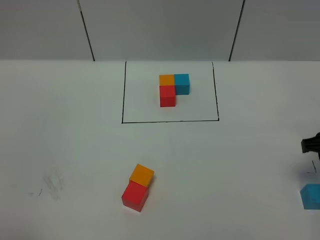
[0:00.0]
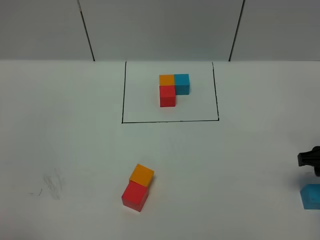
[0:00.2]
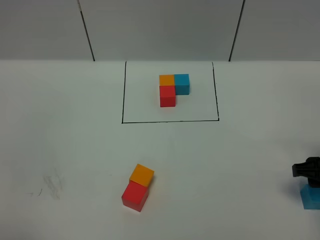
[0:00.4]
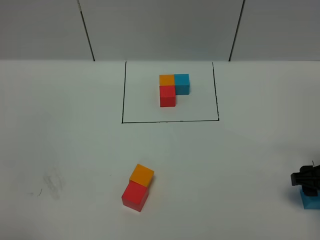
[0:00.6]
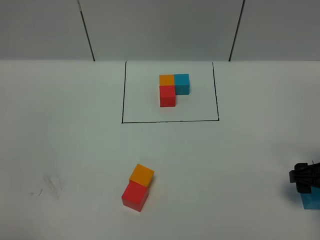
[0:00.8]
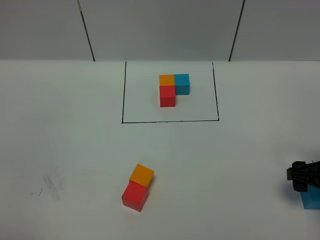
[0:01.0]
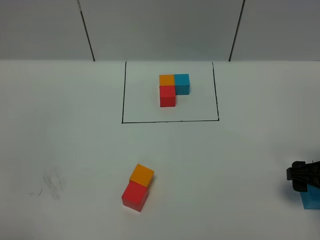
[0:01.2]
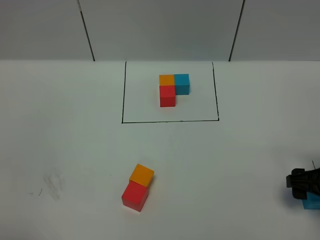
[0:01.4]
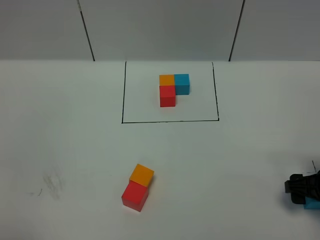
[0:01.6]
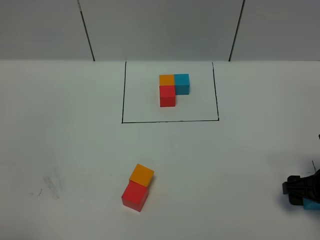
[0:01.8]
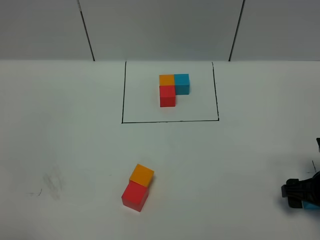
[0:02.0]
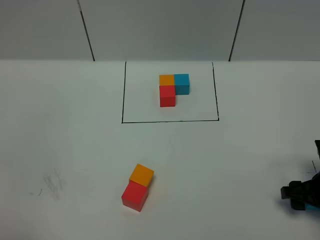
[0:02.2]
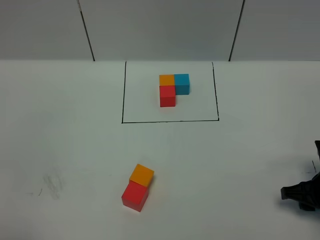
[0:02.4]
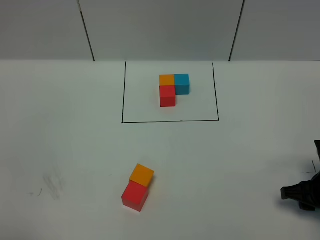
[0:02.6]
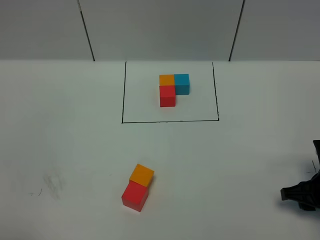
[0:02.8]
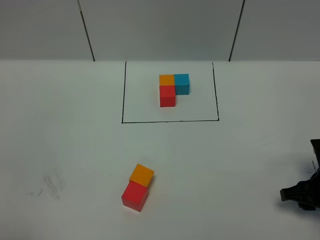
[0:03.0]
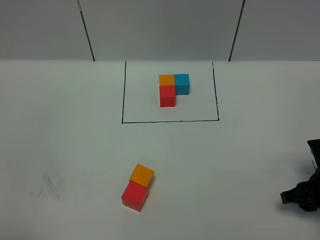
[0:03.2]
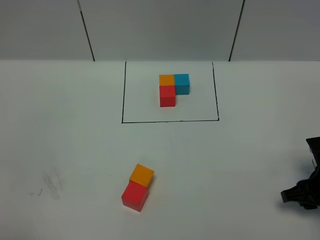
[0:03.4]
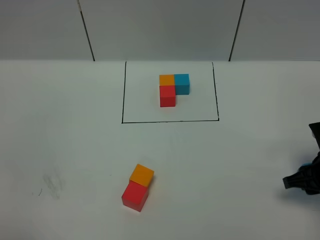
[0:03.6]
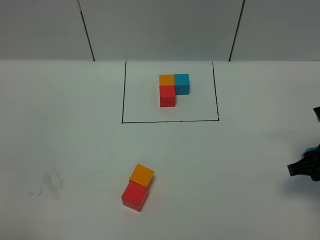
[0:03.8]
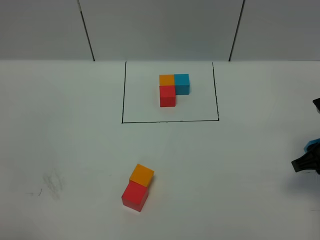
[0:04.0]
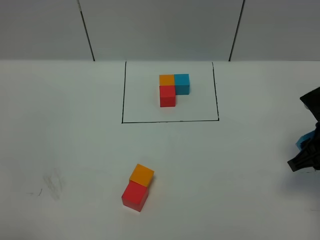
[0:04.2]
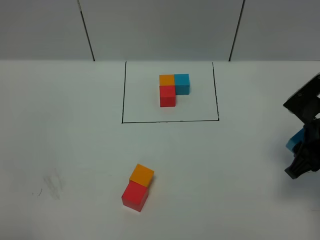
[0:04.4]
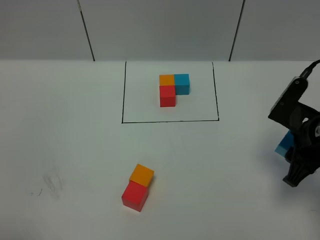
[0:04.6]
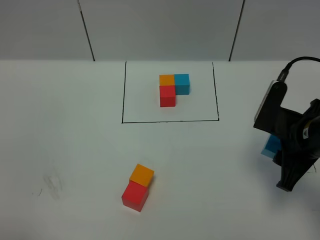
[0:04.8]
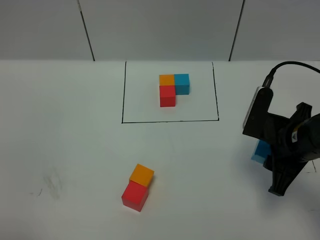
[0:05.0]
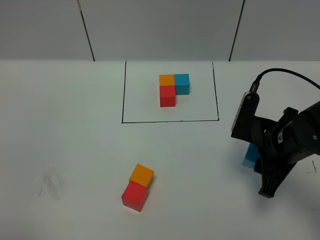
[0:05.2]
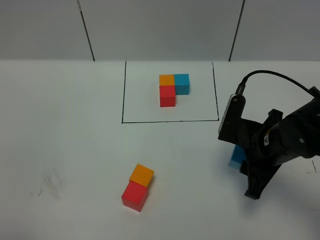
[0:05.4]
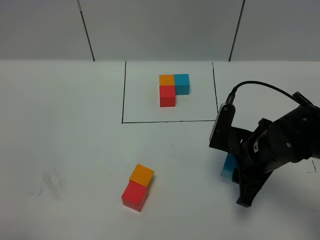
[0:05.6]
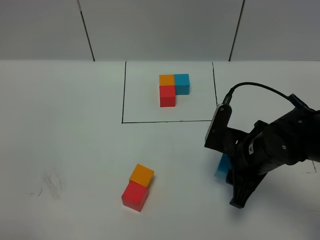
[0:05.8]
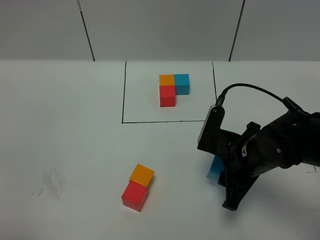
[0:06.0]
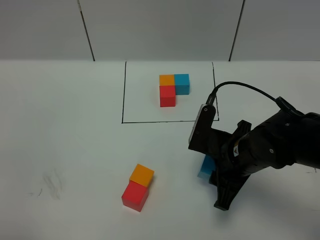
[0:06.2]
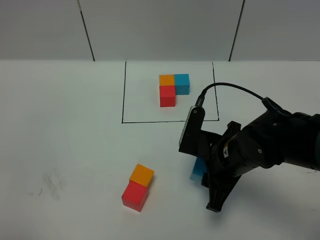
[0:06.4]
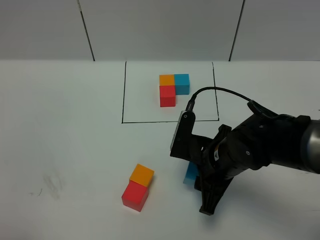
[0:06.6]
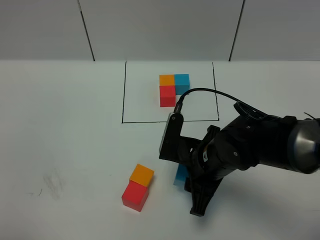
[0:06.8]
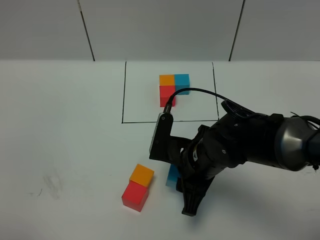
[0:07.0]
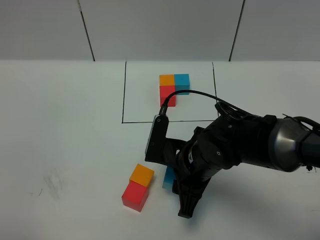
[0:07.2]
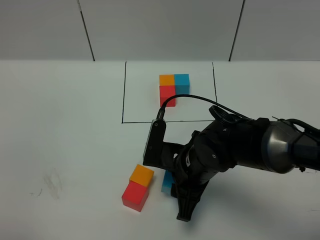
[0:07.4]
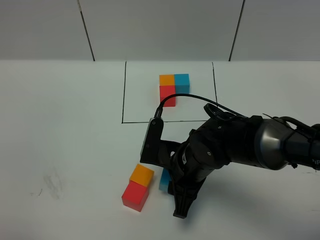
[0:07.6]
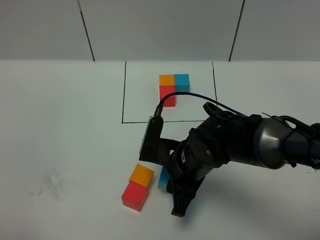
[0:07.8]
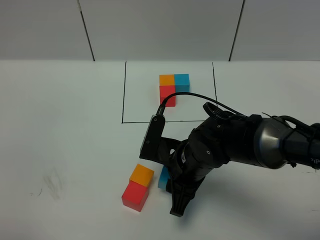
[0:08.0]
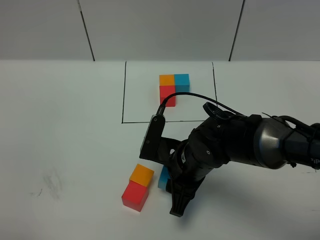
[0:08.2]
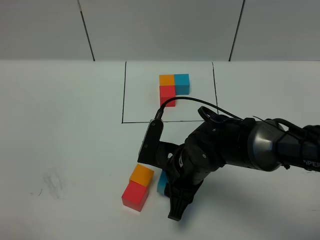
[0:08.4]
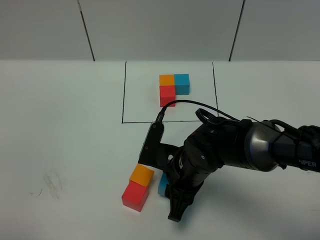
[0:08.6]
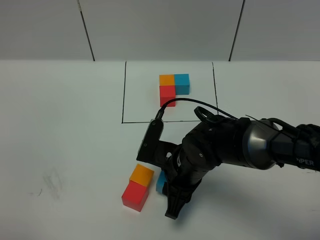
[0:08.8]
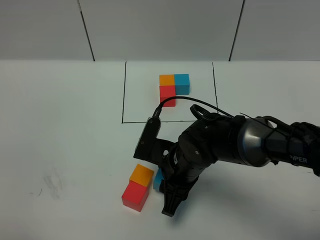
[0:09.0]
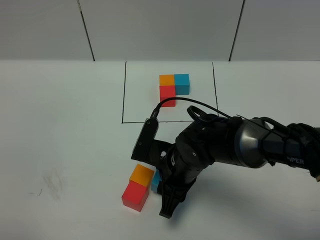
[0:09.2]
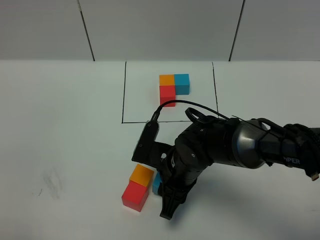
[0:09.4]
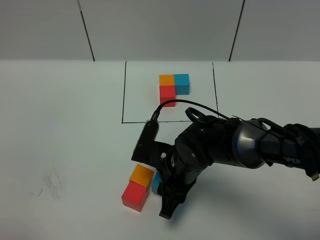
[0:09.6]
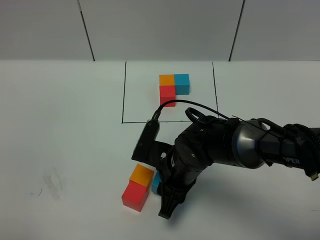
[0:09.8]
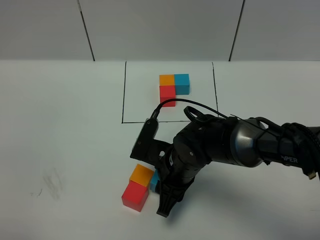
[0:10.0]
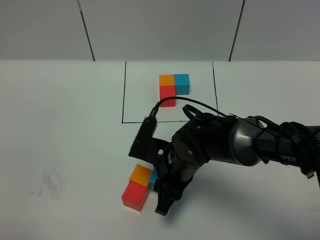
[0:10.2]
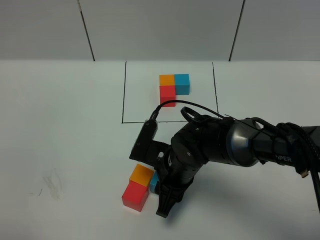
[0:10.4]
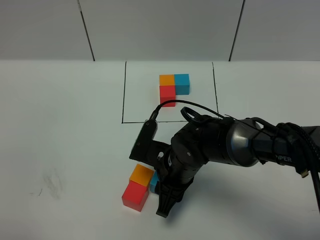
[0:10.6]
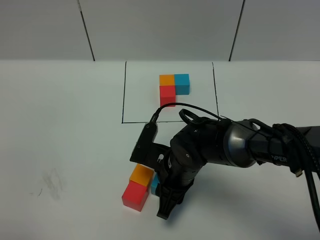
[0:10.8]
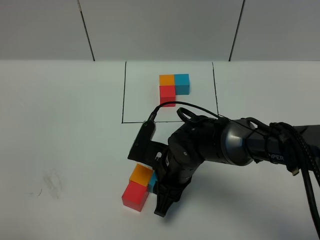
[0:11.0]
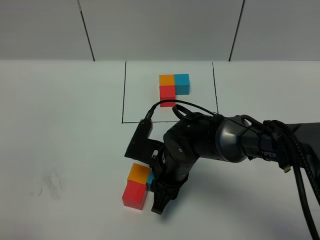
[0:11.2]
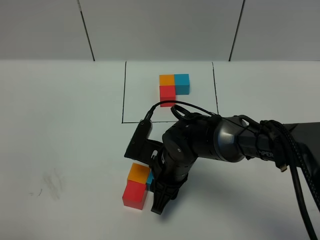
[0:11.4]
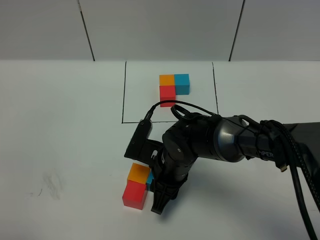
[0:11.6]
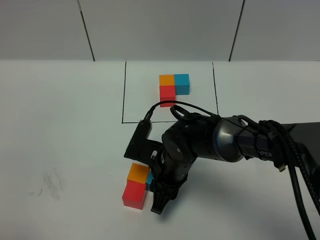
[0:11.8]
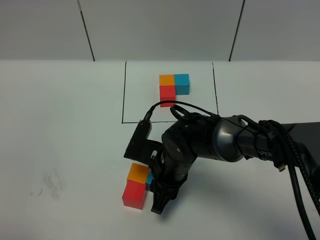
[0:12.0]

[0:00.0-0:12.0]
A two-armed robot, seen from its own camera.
Task of the whole recording: According to the building block template in front, assemble the scattered blocks together.
0:00.0 to 0:01.6: The right gripper is displaced downward by approximately 5 cm.
0:01.6 to 0:03.0: The right gripper closes its fingers.
0:03.0 to 0:04.4: The right gripper travels upward by approximately 10 cm.
0:04.4 to 0:06.0: The right gripper is displaced to the left by approximately 10 cm.
0:06.0 to 0:07.6: The right gripper shifts about 10 cm to the left.
0:07.6 to 0:09.0: The grippers move only a little.
0:09.0 to 0:10.4: Both grippers stay put.
0:10.4 to 0:12.0: The grippers make only small movements.

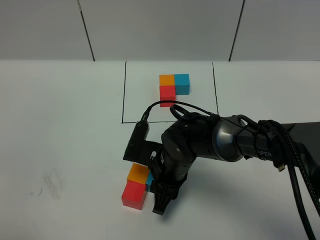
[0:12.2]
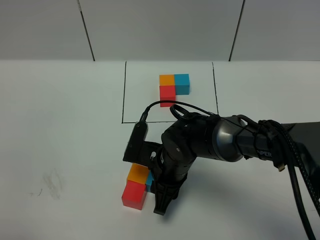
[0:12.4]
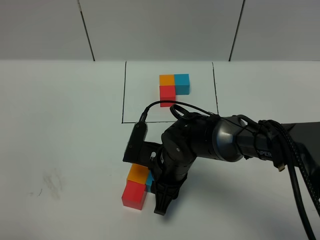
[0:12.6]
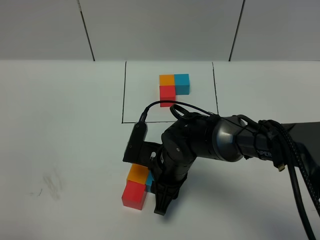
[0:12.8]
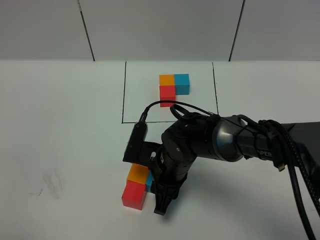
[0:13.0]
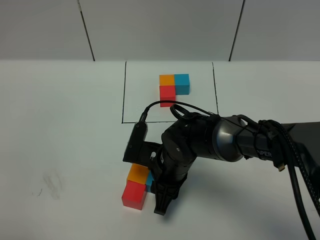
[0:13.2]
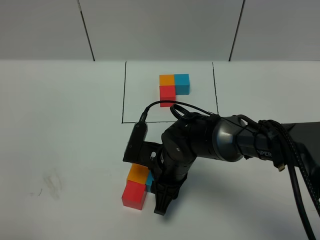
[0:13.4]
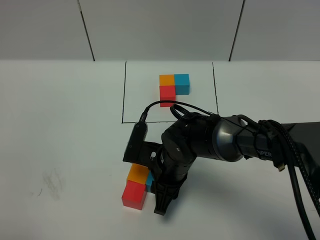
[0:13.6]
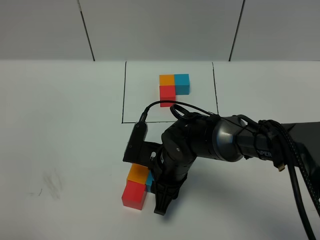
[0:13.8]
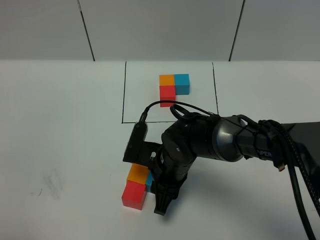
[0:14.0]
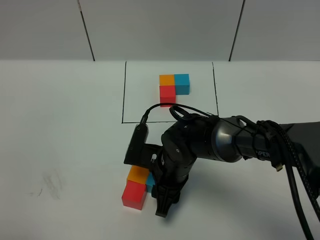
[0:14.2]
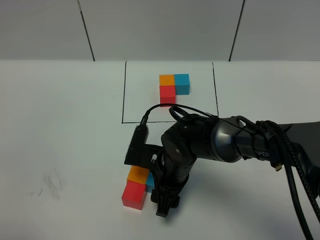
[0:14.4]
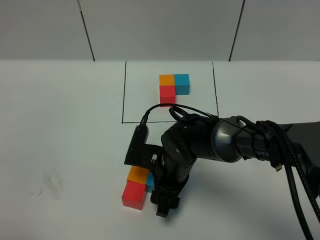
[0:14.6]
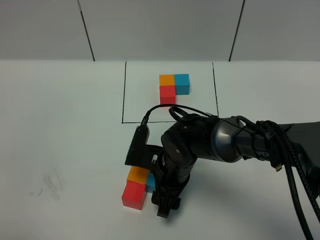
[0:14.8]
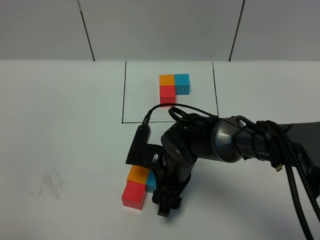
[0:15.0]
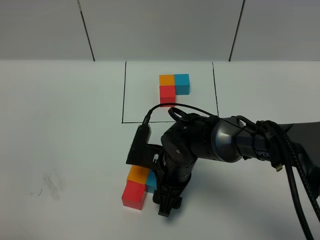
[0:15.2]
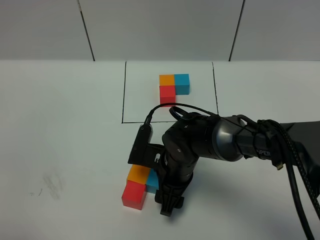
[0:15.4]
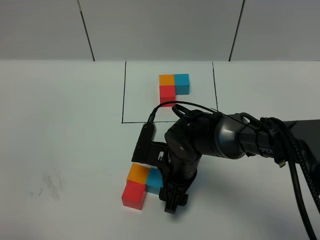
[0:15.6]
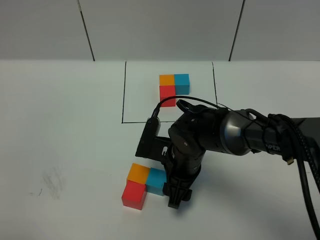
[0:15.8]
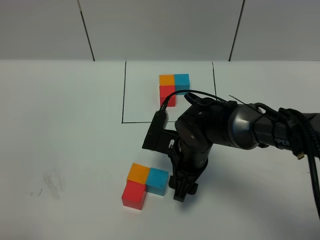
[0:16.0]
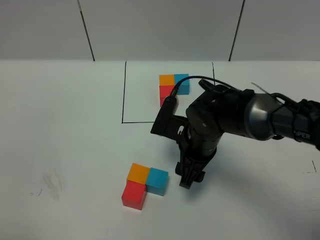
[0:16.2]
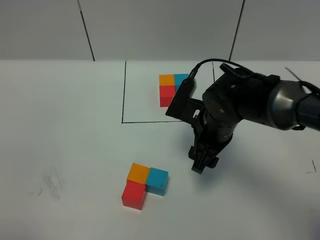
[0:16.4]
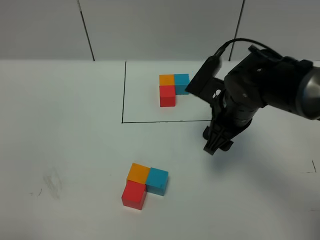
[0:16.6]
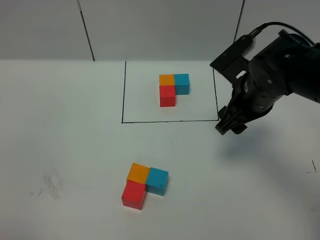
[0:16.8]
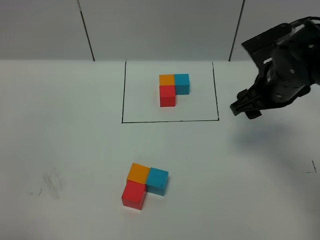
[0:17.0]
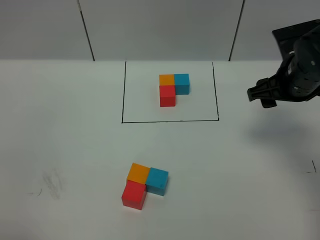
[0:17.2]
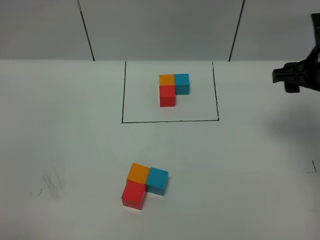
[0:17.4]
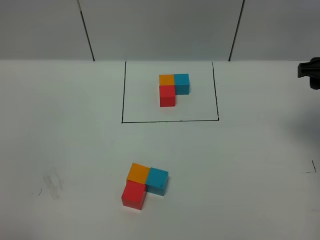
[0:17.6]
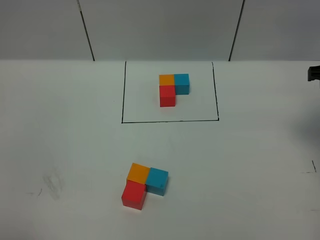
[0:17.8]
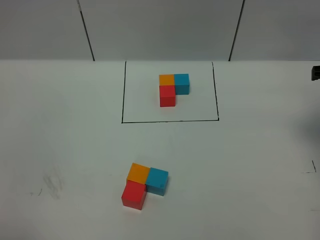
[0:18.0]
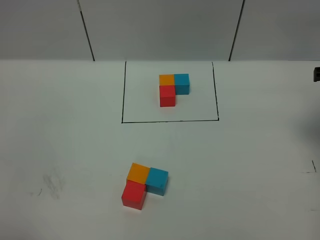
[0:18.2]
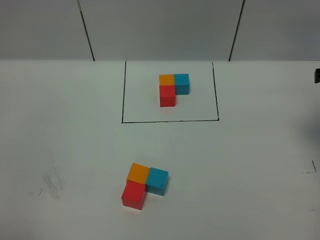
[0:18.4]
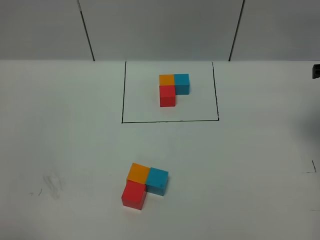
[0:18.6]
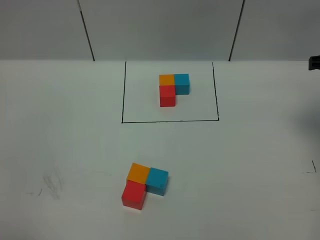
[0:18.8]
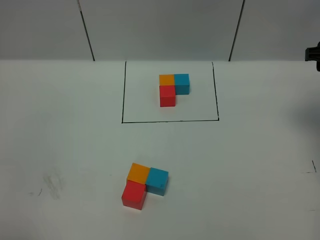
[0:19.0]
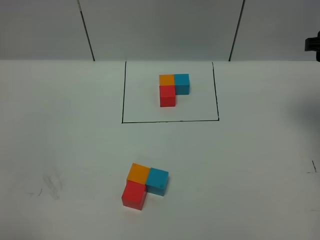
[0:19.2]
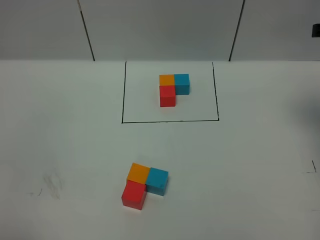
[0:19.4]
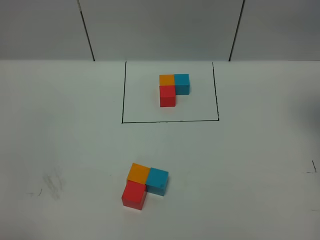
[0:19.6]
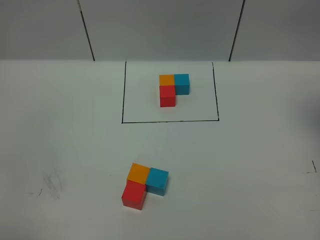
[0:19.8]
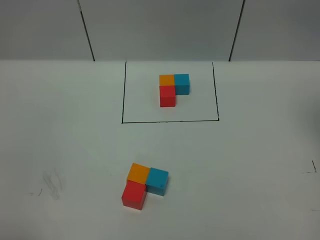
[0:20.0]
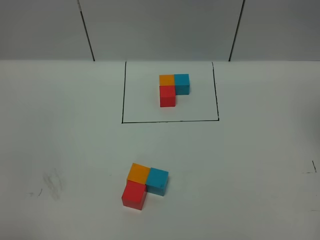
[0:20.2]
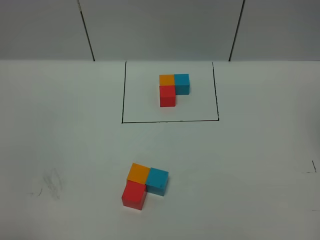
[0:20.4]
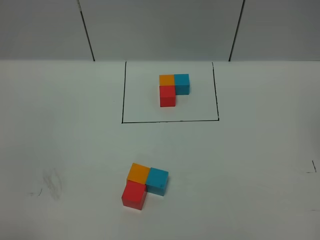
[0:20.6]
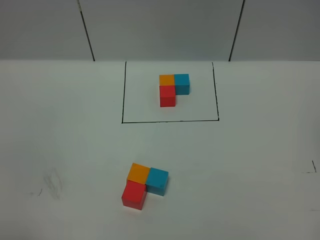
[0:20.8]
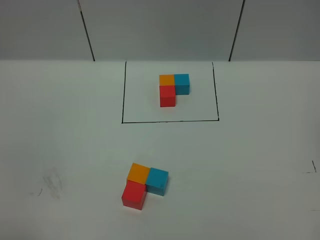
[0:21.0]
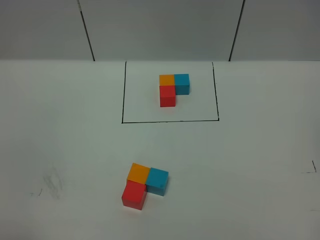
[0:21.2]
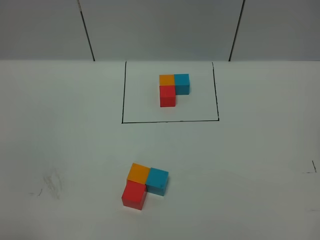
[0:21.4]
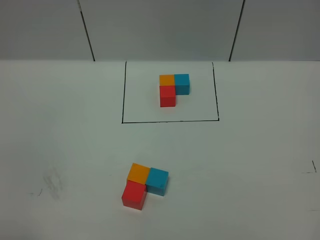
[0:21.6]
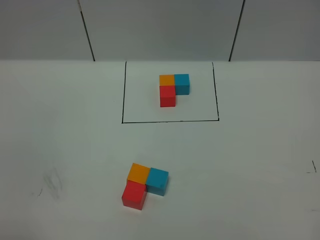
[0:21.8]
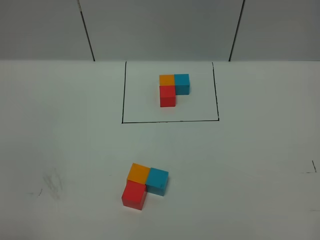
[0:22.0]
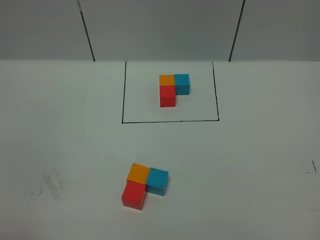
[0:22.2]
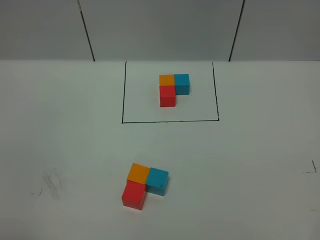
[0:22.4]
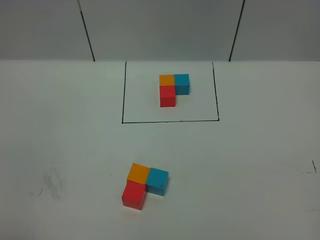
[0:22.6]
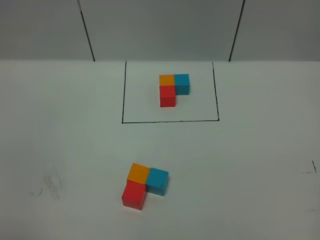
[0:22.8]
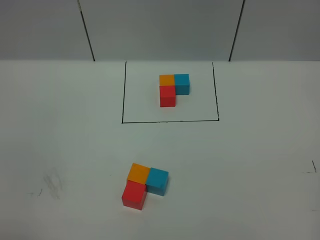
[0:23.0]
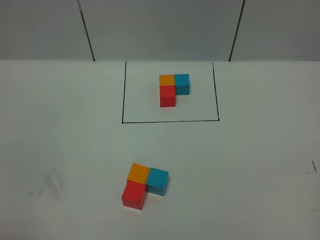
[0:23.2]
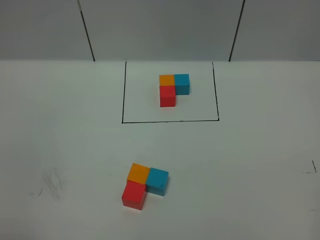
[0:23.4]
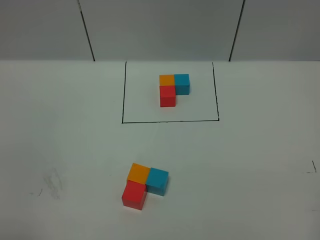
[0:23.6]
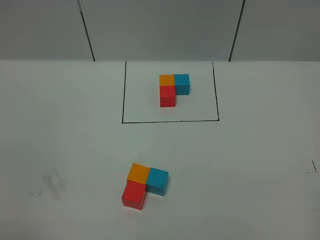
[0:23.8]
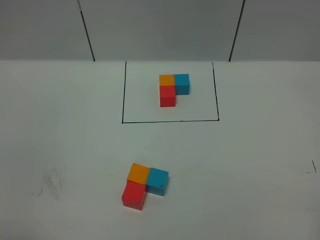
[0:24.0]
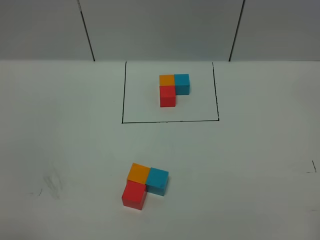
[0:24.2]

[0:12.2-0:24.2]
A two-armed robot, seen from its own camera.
Task of the whole recording: According to the building block template in front, assemble the scattered blocks together.
Step, 0:12.2 to 0:15.4: Put the blue cube on the right of the orange cube.
0:12.2 to 0:15.2: Both grippers stay put.
0:15.2 to 0:16.6: The right gripper moves upward and to the right, some 15 cm.
0:16.6 to 0:18.2: The right gripper heads to the right, covering about 20 cm.
